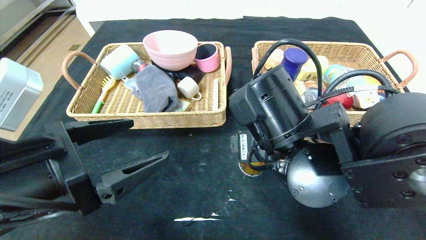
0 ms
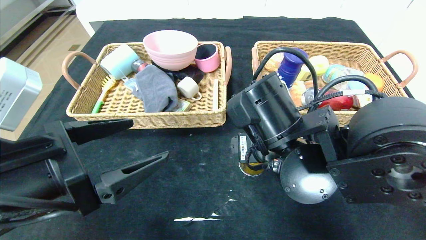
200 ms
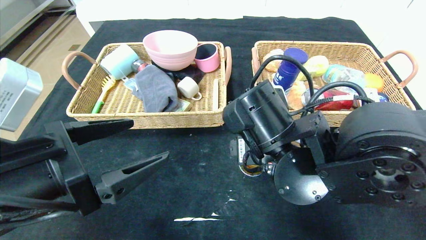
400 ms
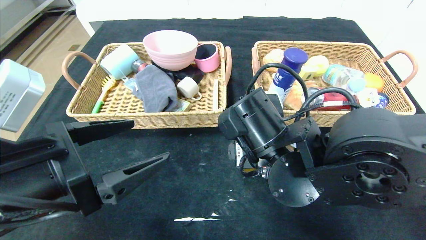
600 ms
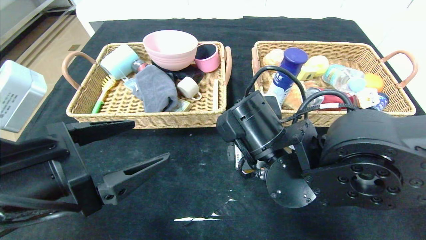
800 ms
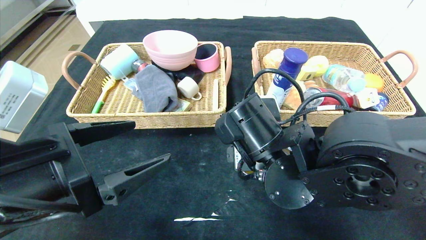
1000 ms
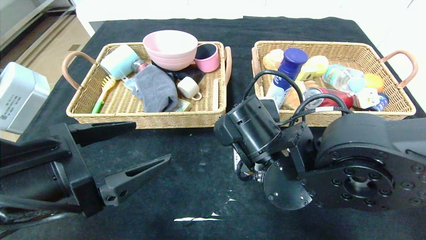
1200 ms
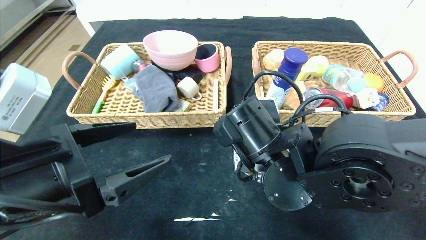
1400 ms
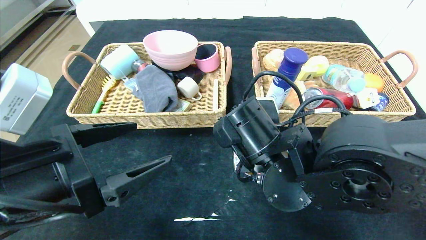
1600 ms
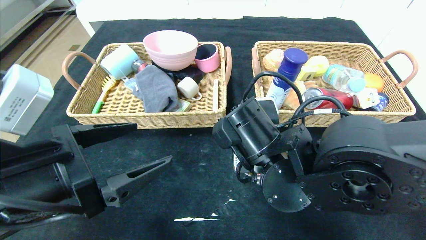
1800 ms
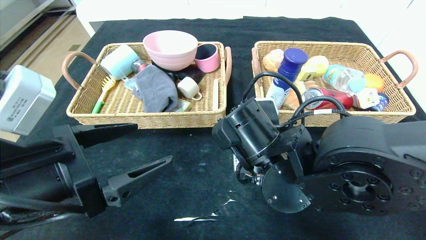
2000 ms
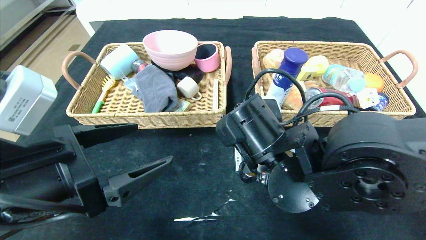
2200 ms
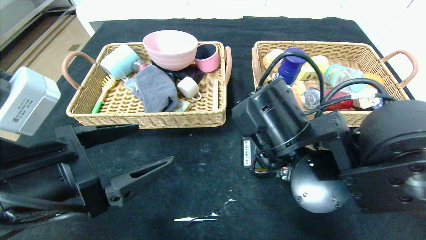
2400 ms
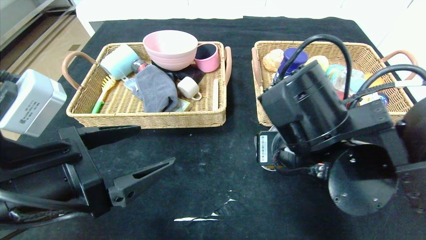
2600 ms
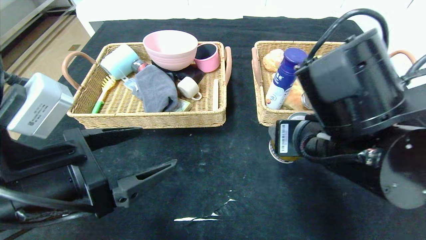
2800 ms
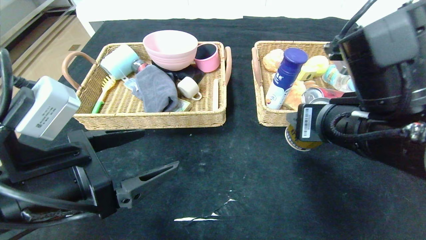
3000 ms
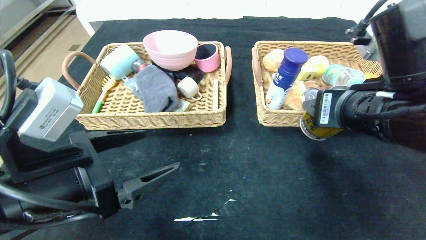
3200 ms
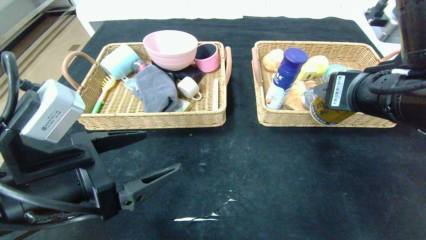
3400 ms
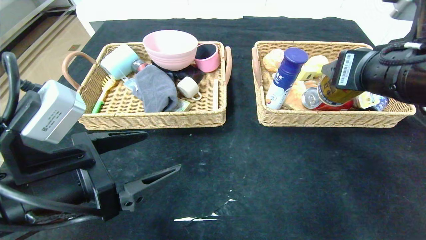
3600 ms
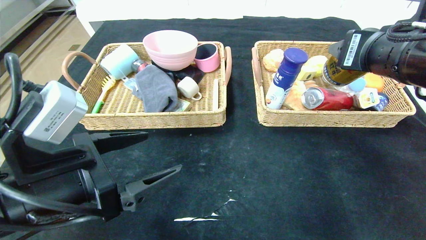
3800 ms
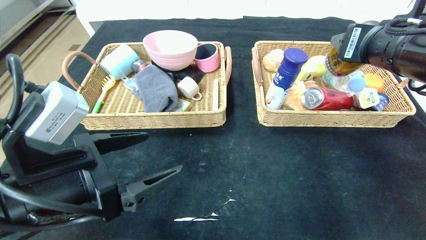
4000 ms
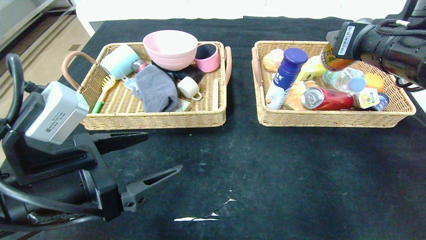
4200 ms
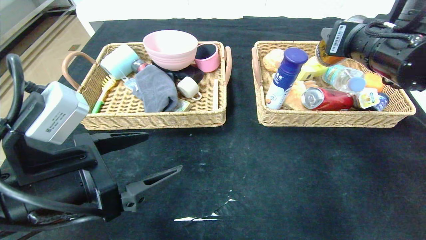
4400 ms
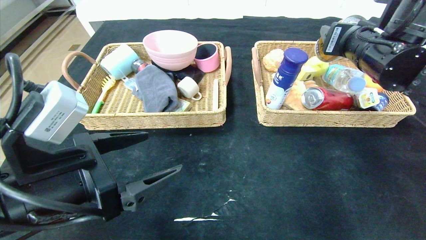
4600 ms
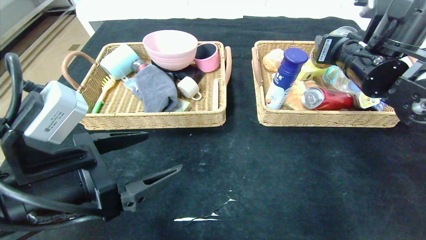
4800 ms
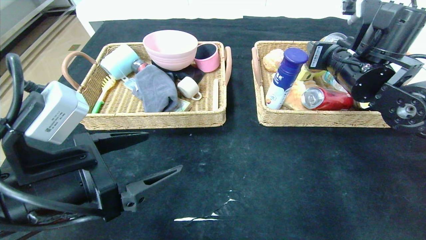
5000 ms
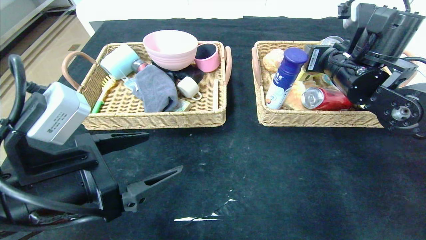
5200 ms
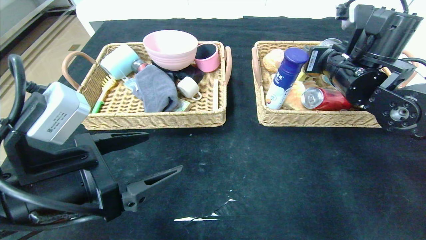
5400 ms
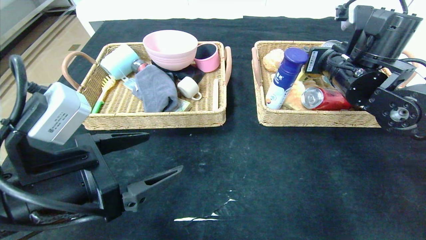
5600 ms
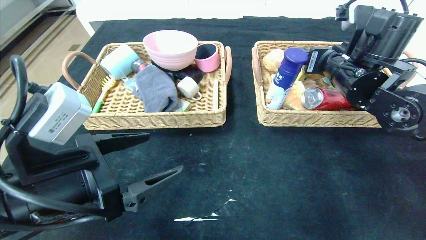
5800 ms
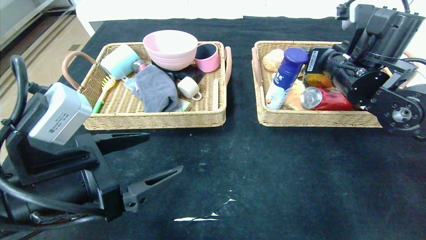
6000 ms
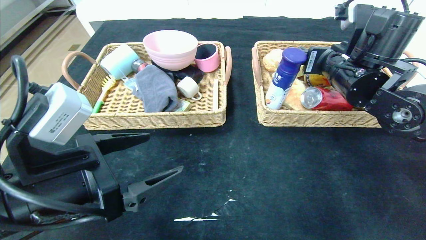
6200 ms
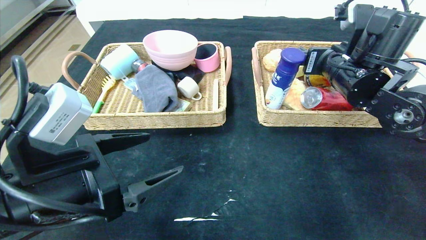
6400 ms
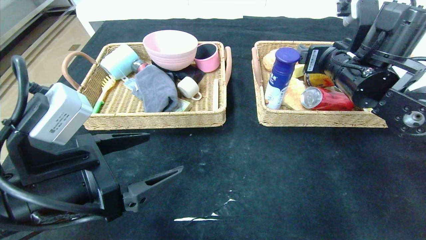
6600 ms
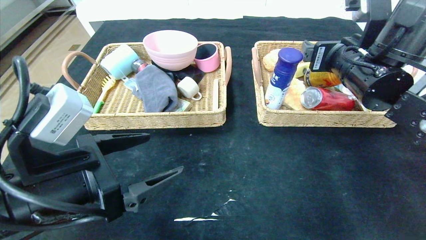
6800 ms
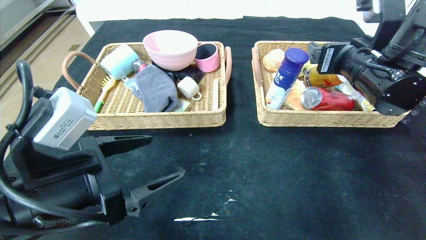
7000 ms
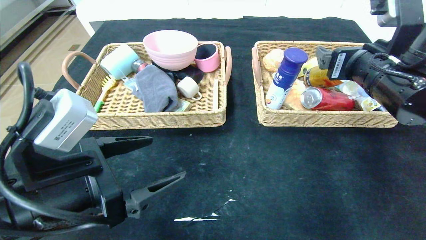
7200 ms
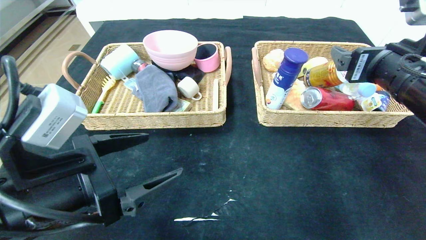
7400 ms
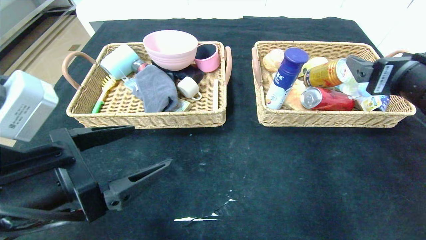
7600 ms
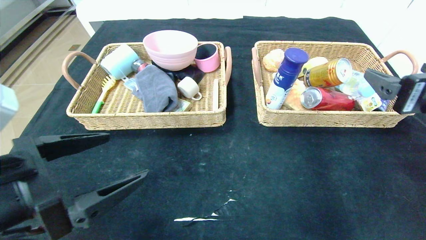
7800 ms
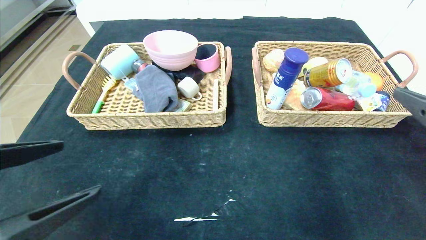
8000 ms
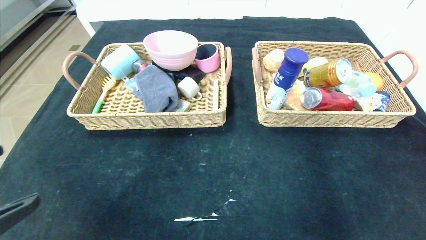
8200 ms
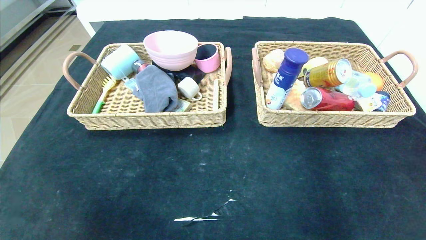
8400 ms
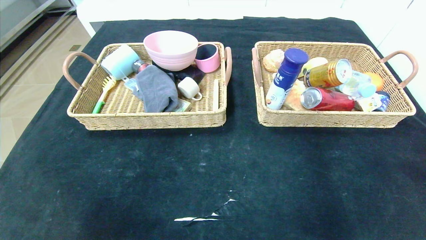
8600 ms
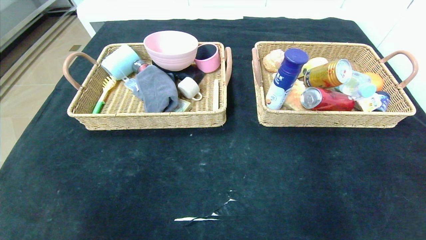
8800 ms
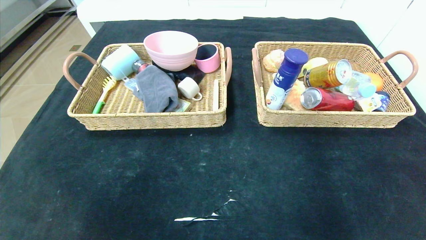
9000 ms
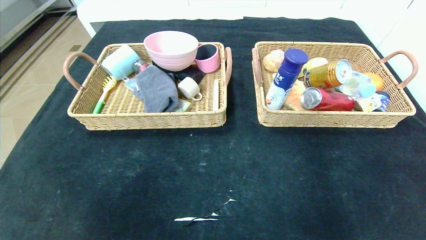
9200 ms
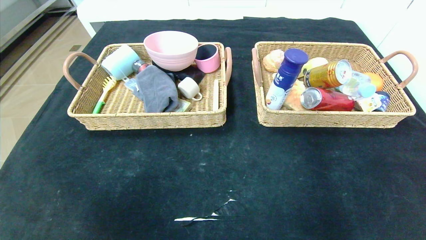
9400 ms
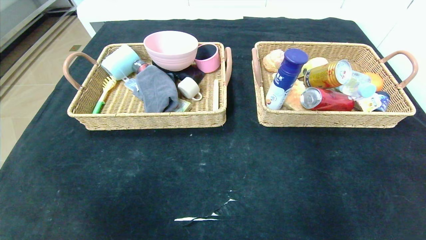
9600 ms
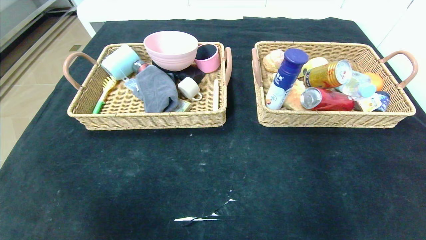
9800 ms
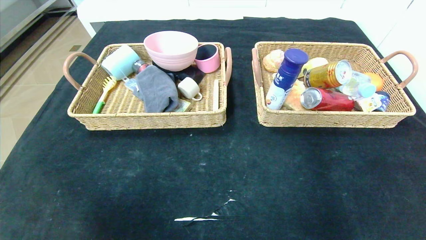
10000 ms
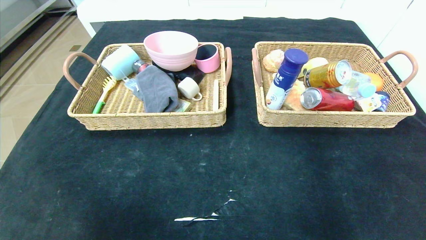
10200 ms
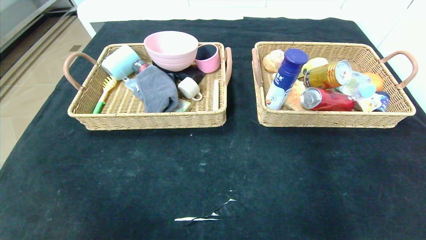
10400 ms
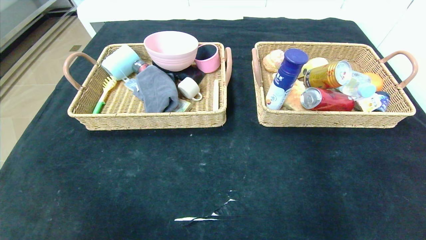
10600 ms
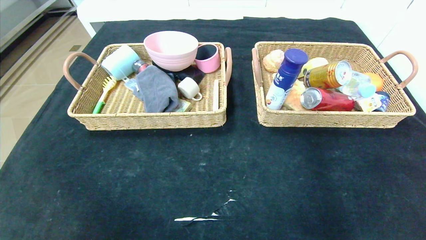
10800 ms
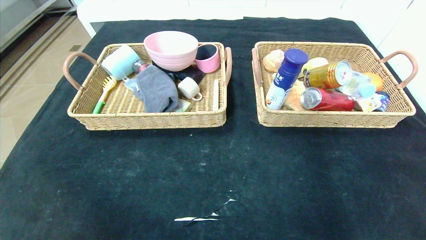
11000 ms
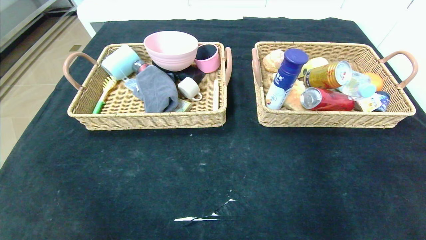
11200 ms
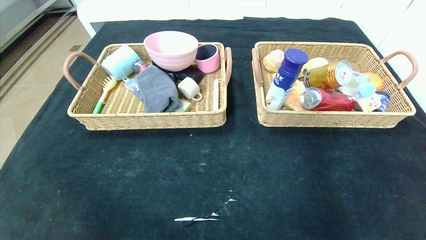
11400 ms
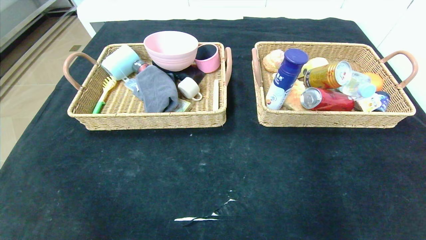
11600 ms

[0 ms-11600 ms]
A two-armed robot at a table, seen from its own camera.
Step, 0 ms to 6200 ms: Grasp the Red Bull and put it in the right basket.
0 ms to 1400 ms: The right gripper closes up.
1400 ms to 2800 ms: The right gripper travels to the right and upward by some 10 cm.
2800 ms to 4400 ms: The right gripper heads forward, to the right and upward, covering roughly 15 cm.
4400 ms to 5800 ms: The right gripper moves forward, roughly 5 cm.
5800 ms to 7200 ms: The right gripper shifts about 5 cm backward.
7200 ms to 8800 ms: The right gripper travels backward and to the right by roughly 35 cm. The left gripper heads backward and to the left, covering some 20 cm.

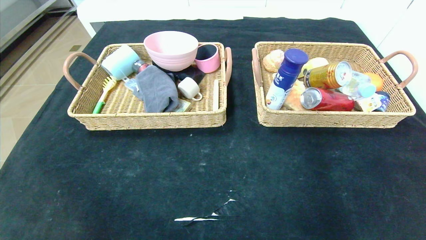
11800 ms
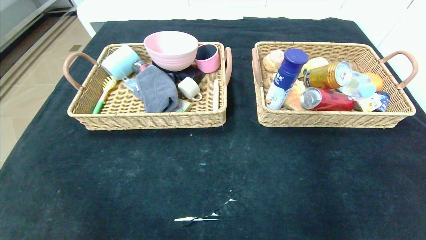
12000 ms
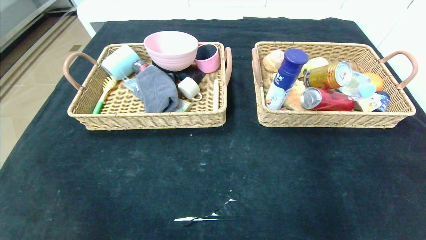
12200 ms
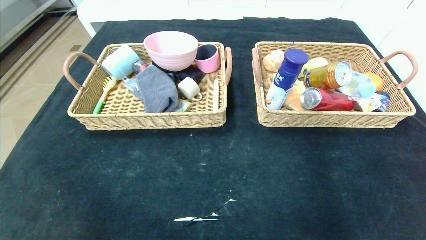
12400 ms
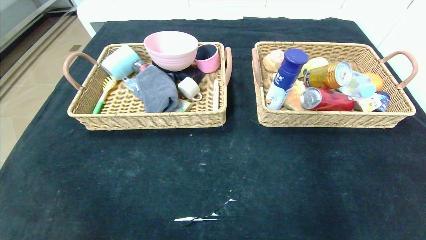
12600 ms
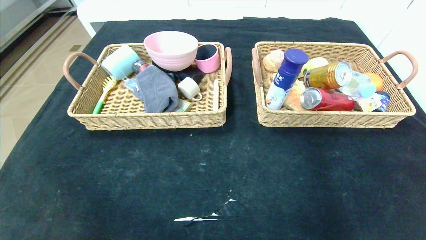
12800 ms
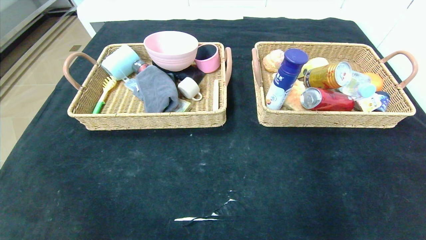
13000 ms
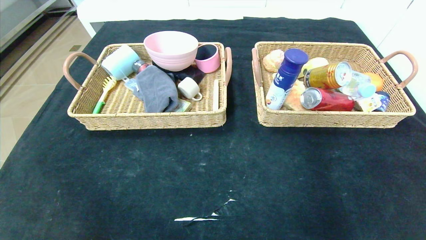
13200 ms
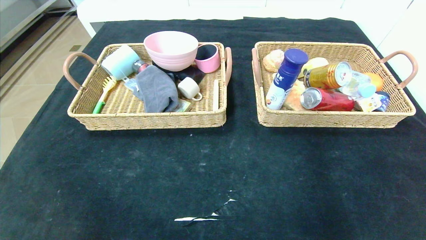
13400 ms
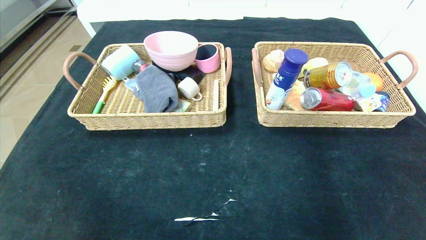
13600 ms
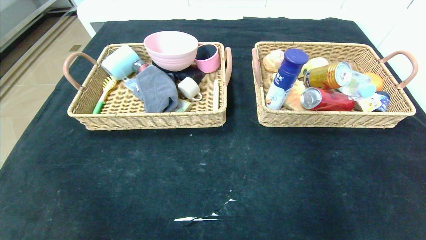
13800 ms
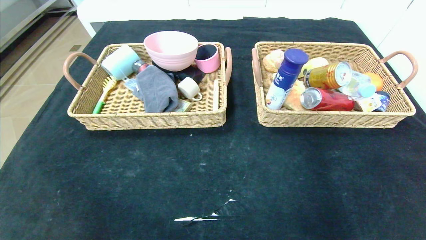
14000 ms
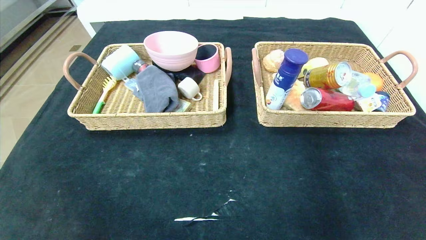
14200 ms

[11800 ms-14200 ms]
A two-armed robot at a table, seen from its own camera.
13000 ms to 14200 ms: Neither gripper changes place.
